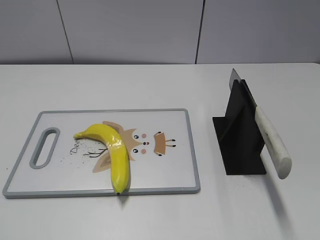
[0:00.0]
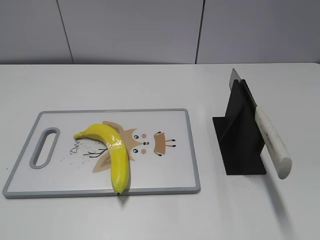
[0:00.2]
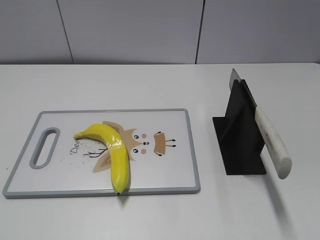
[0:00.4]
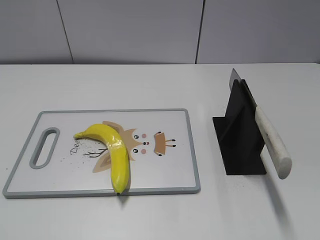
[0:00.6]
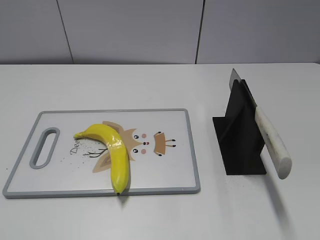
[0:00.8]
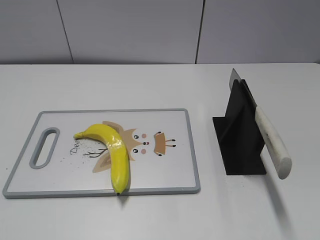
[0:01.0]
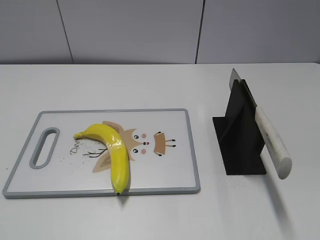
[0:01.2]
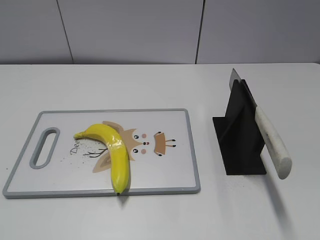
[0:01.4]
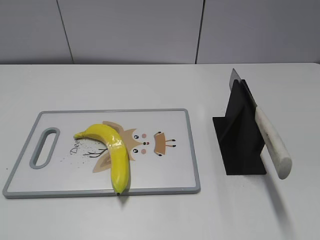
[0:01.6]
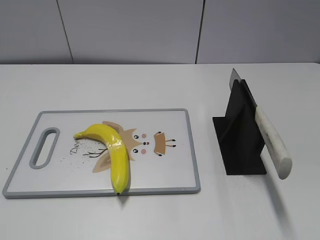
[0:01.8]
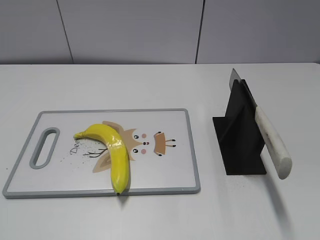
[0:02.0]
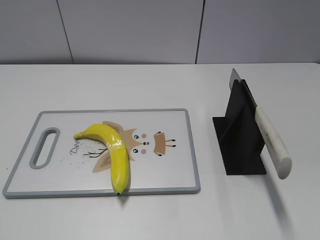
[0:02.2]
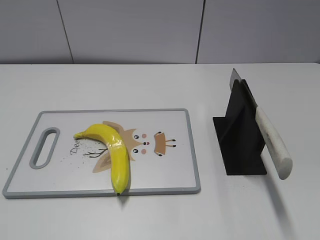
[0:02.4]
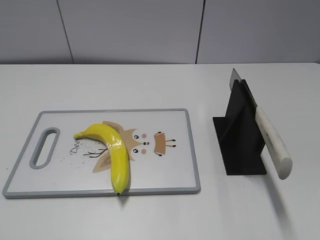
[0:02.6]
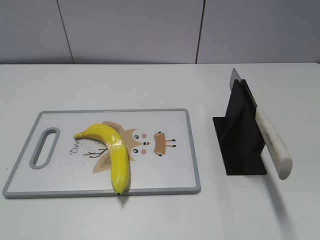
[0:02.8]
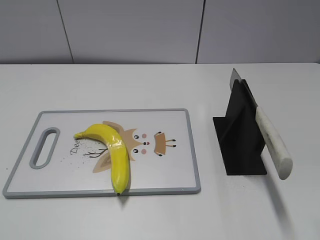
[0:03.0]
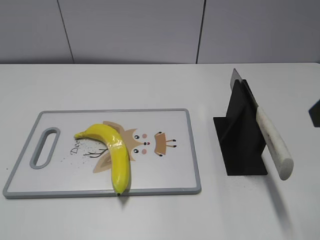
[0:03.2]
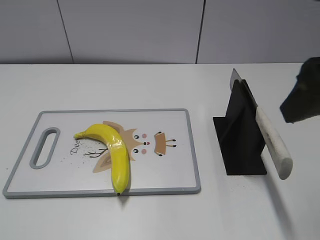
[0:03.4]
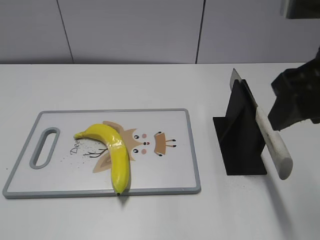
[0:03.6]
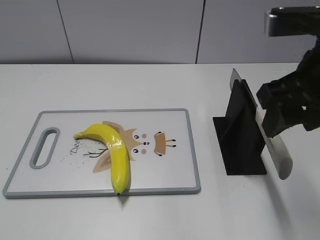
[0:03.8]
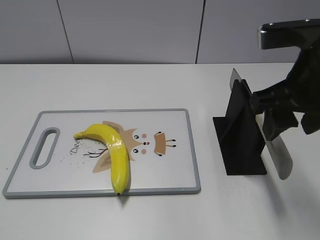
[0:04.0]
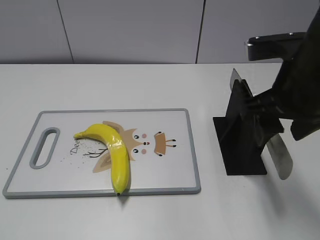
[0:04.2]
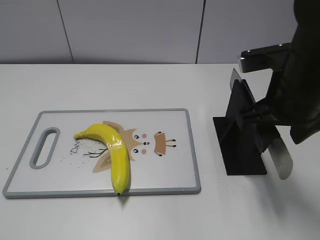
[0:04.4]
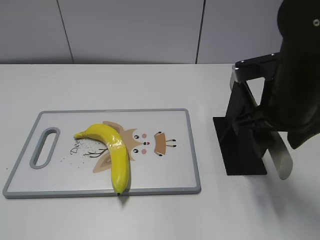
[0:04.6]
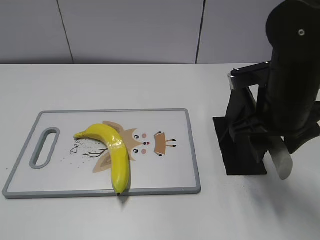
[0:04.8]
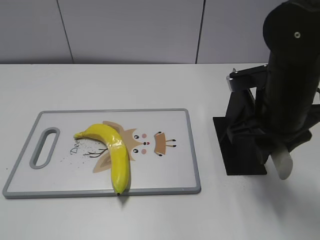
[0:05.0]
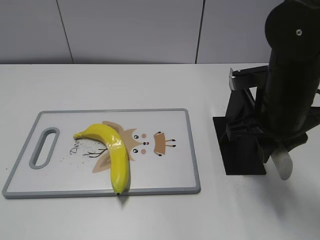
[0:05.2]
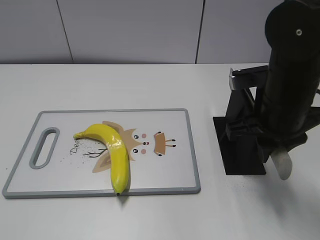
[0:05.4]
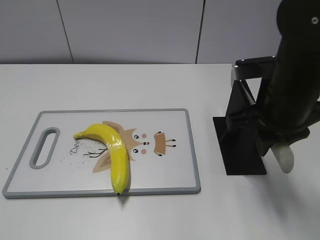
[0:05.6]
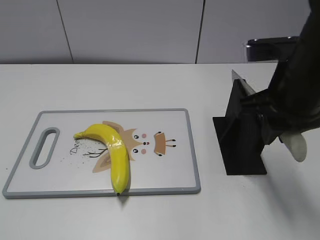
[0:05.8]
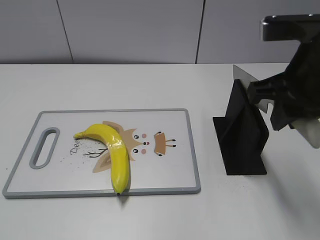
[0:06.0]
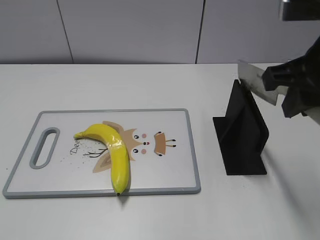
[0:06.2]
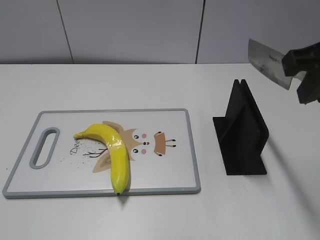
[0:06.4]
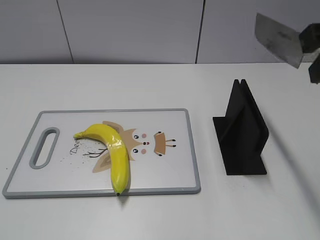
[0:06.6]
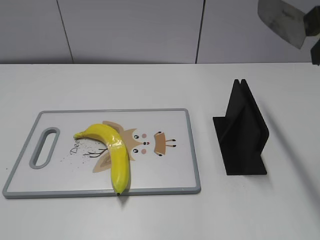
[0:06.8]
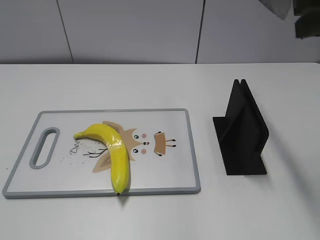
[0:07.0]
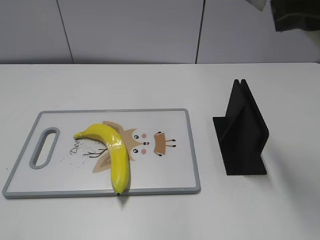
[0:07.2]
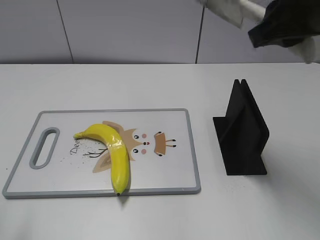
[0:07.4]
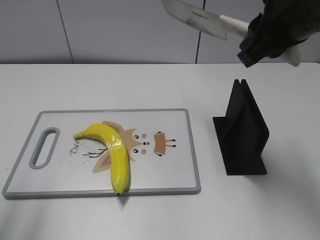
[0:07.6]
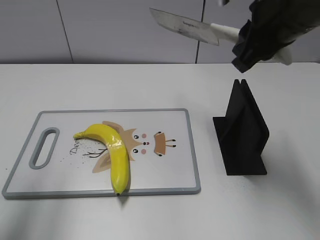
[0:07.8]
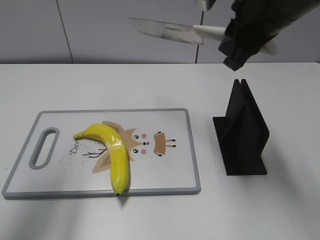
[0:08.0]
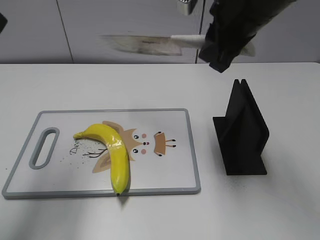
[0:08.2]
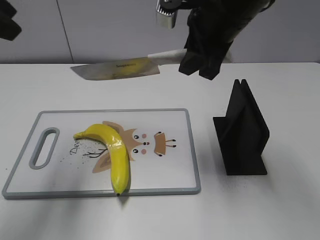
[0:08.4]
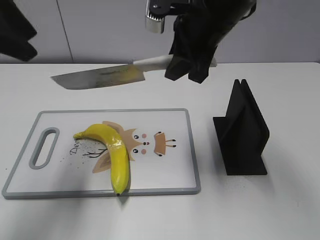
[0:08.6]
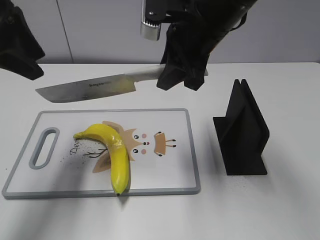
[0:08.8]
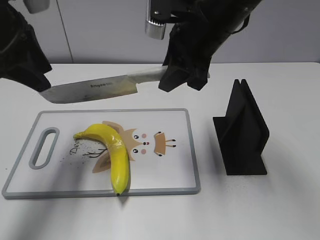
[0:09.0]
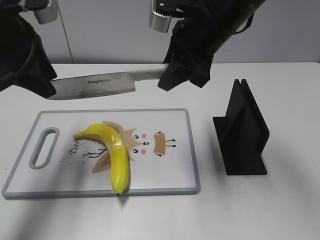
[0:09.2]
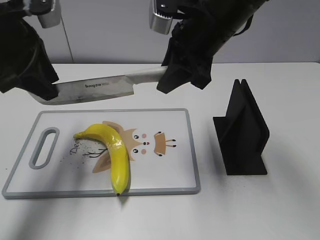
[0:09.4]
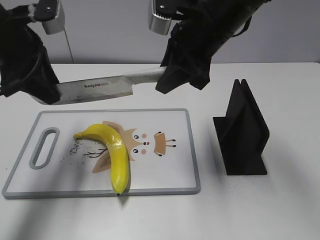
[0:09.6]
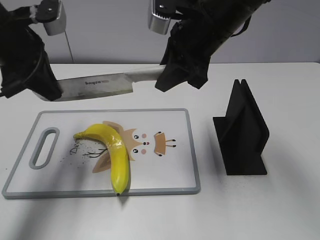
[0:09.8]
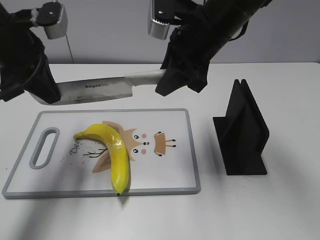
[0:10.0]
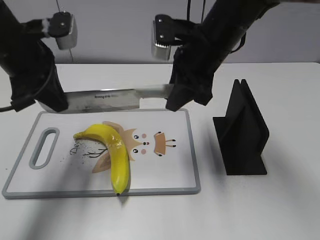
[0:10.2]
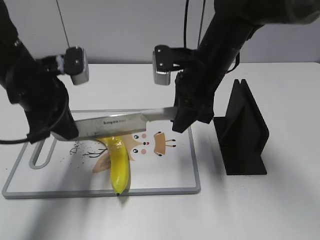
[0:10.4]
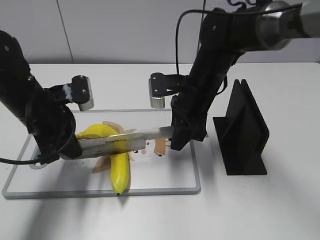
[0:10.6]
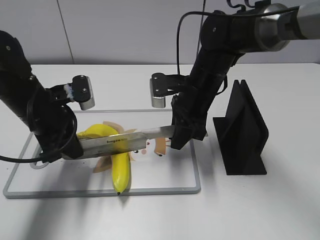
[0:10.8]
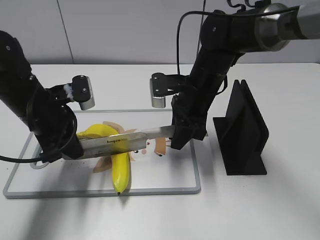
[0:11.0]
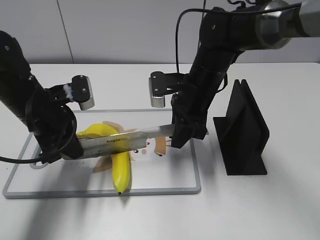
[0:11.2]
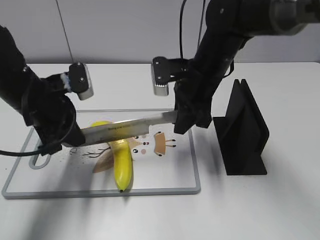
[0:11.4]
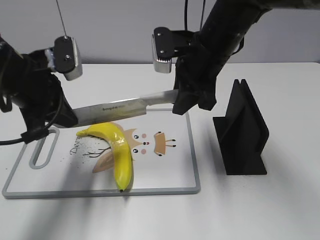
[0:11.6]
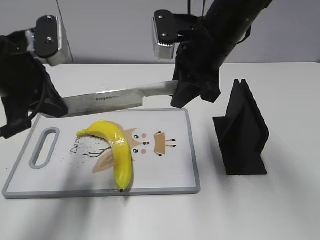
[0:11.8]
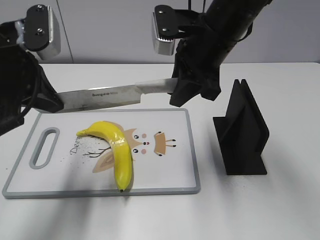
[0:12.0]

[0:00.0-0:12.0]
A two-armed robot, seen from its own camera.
Task of the whole recording: cut plastic banana.
Step, 0:00.0 to 0:06.6: Grab the knife handle with your right hand.
0:03.0 to 0:04.4: The right gripper shifts approximately 15 cm forward, downward and to the left.
0:04.4 to 0:06.0: The right gripper closes its fingers.
0:06.0 to 0:07.6: The left gripper goes some 15 cm forward and upward.
0:07.6 to 0:09.0: The right gripper goes roughly 10 cm to the left, forward and downward. Meanwhile the left gripper is displaced forward and to the right by approximately 20 cm.
0:09.0 to 0:10.4: Both grippers move downward, roughly 10 cm. The left gripper closes.
0:10.4 to 0:12.0: Both grippers move upward, approximately 5 cm.

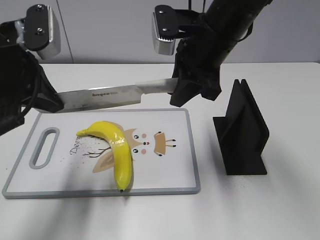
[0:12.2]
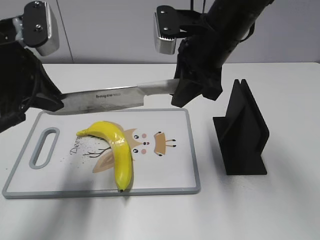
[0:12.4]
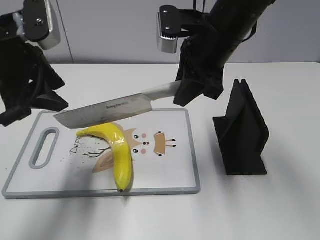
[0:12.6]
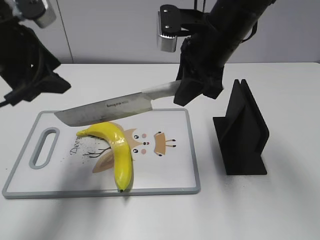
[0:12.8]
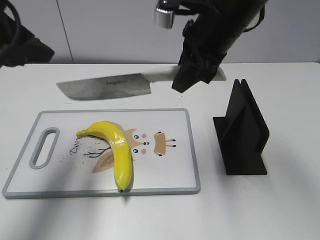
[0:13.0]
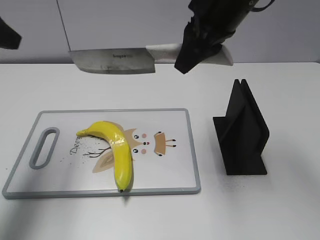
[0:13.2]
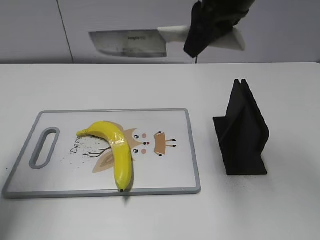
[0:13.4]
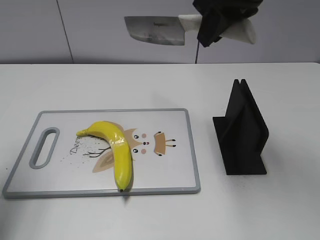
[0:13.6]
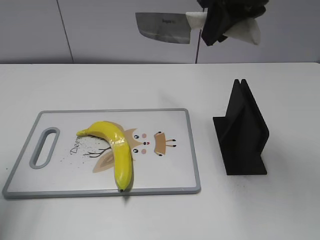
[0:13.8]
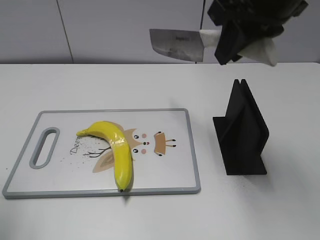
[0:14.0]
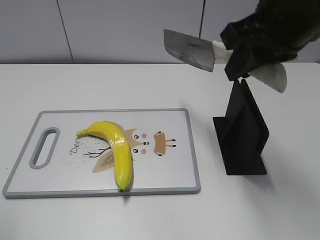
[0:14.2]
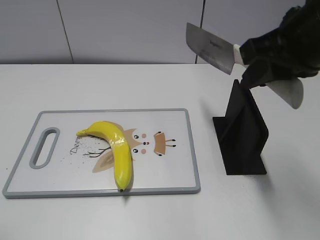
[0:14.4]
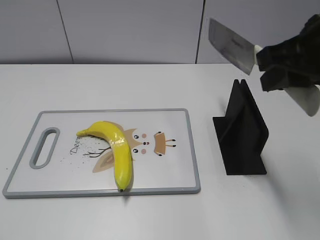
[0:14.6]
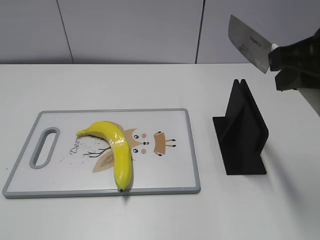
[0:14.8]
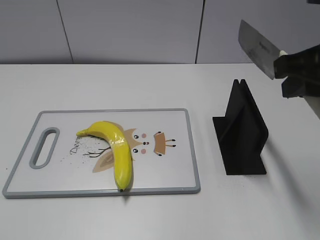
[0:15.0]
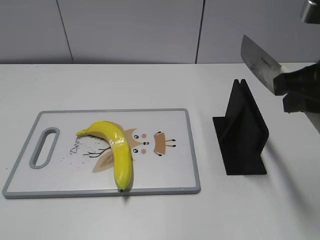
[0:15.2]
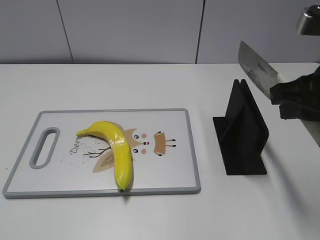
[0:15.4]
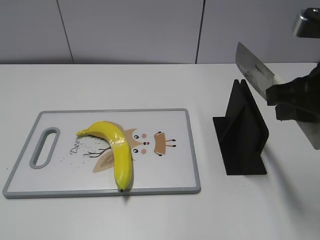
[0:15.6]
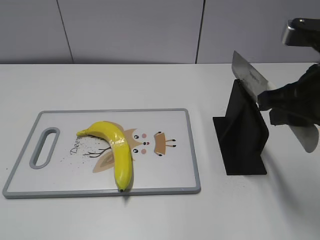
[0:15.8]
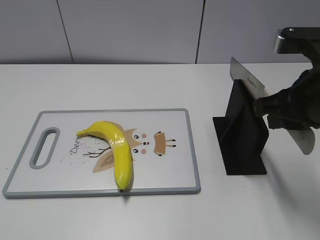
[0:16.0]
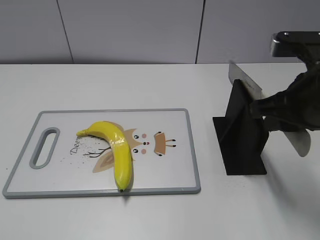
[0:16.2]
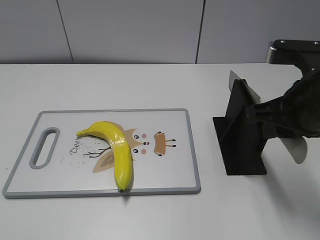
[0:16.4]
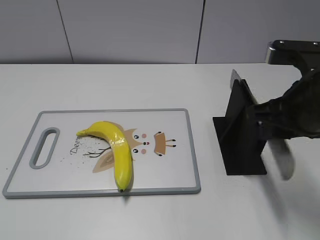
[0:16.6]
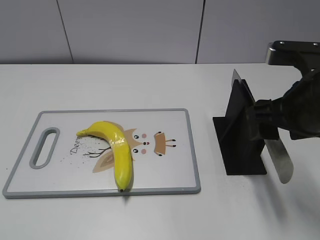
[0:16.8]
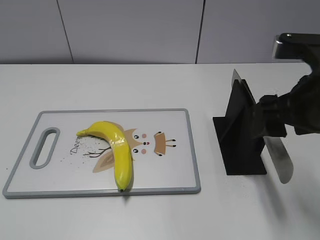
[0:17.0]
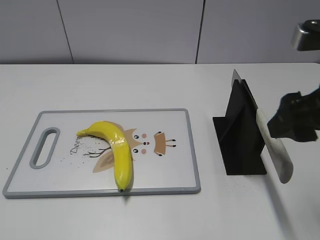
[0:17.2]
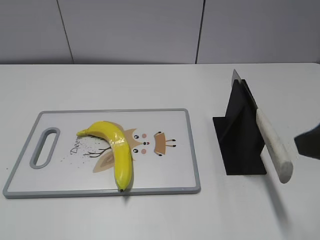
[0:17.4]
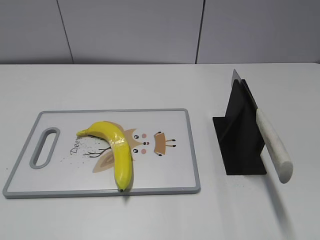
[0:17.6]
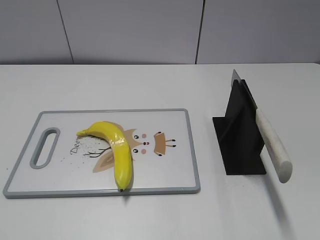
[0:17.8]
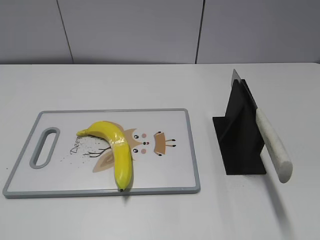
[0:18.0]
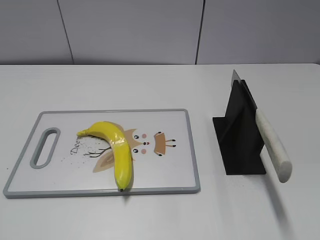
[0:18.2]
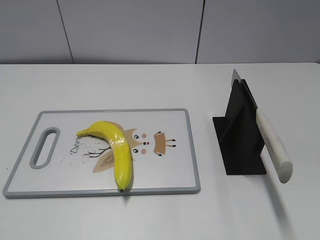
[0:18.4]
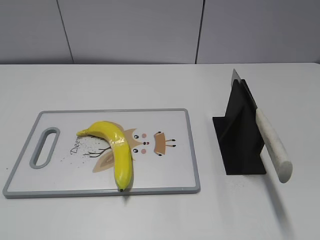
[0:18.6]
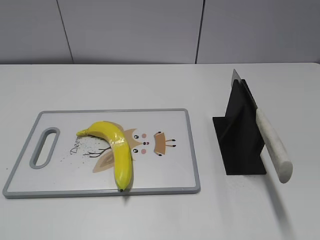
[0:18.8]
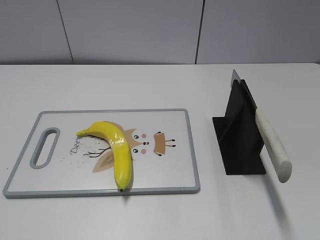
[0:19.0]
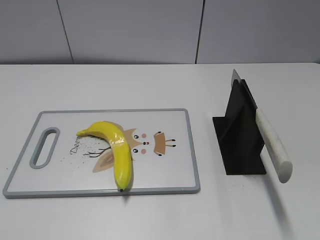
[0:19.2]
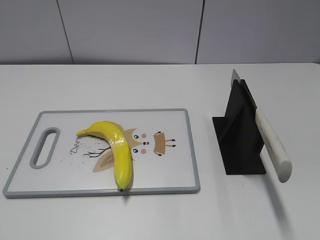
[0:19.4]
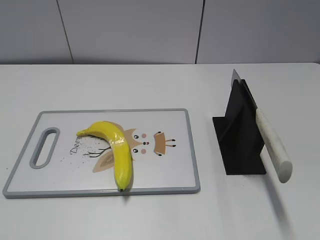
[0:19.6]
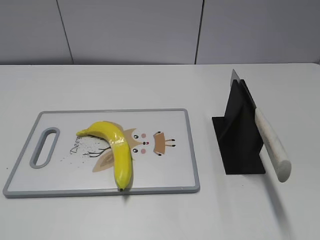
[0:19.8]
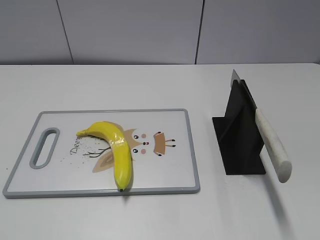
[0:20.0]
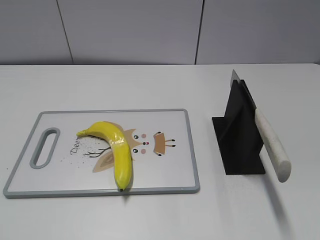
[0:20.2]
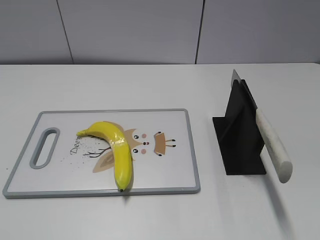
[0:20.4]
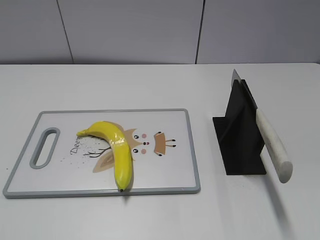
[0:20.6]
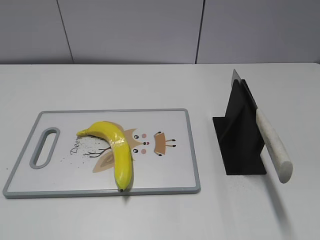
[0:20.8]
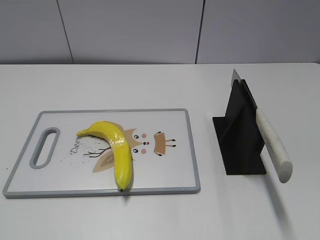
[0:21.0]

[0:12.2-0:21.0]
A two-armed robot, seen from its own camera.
Task of the whole recording: cut plastic banana.
Step, 0:12.4 to 0:13.8: Cut the banana with your right hand.
Step, 0:14.0 to 0:15.4: Secure the blade with your left hand.
Step, 0:15.6 to 0:20.8: Place the knife on the storage rack with your right hand.
0:12.2 to 0:13.6: The left gripper travels to the left and upward by roughly 15 cm, and opens up. The right gripper goes about 10 cm upward.
0:13.6 to 0:15.2: The right gripper heads backward, to the right and downward, covering approximately 15 cm, while the left gripper moves backward, roughly 25 cm.
0:15.2 to 0:16.6: The right gripper is displaced downward by roughly 5 cm.
0:16.6 to 0:18.0: The right gripper goes some 20 cm backward and to the right, and opens.

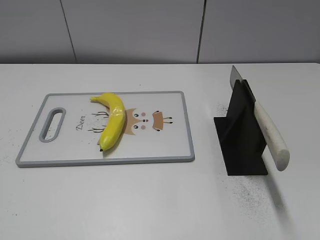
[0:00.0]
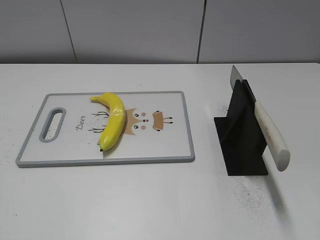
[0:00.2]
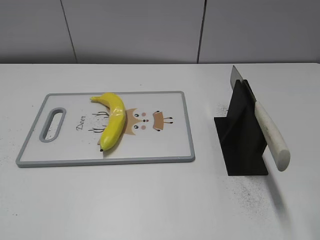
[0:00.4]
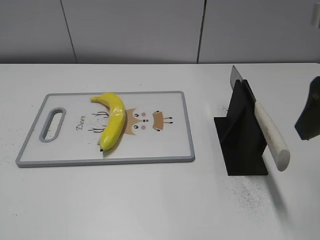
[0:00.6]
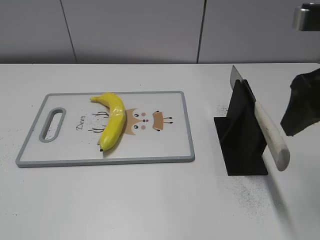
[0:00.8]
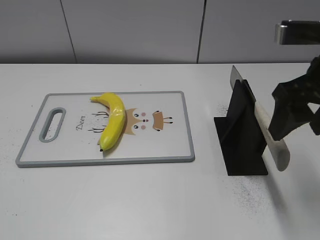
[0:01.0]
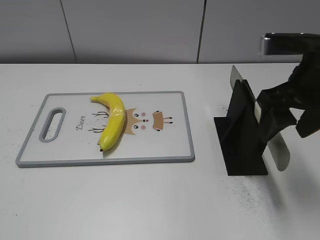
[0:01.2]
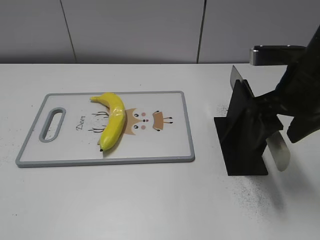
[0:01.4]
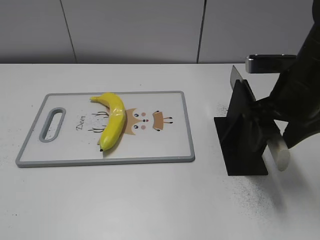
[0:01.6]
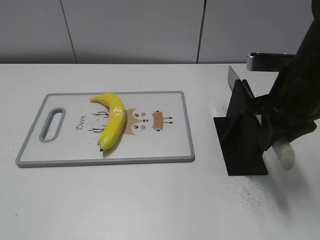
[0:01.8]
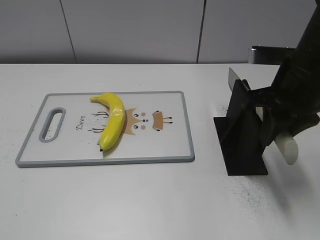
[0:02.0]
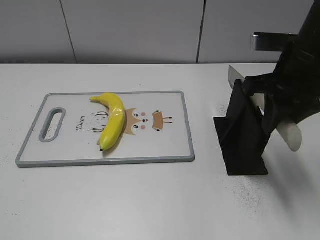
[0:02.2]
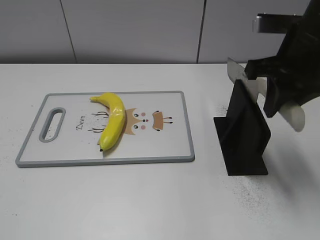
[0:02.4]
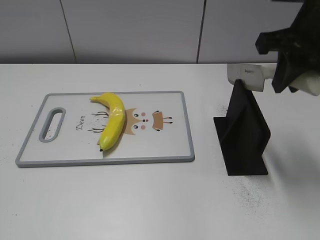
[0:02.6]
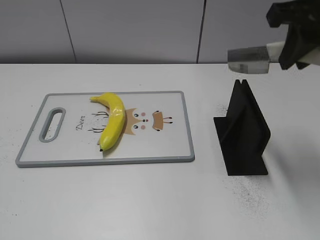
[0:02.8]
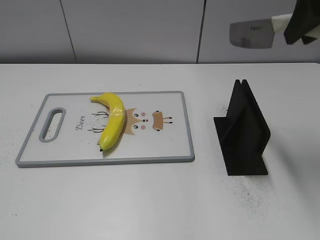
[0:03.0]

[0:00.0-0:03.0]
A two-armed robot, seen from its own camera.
Task of the whole recording: cut plastic banana.
0:00.0 to 0:01.6: The right gripper is displaced forward, downward and to the left by some 20 cm.
0:01.6 to 0:03.0: The right gripper heads upward, covering approximately 15 cm, and closes up.
